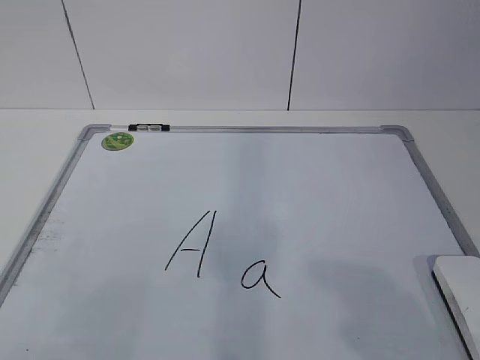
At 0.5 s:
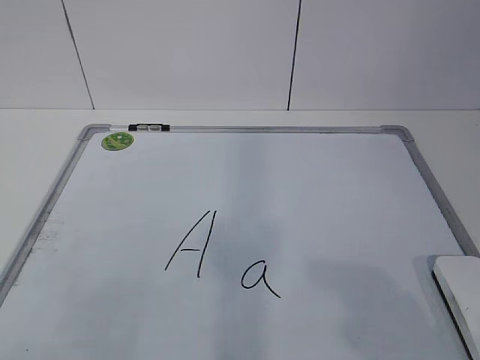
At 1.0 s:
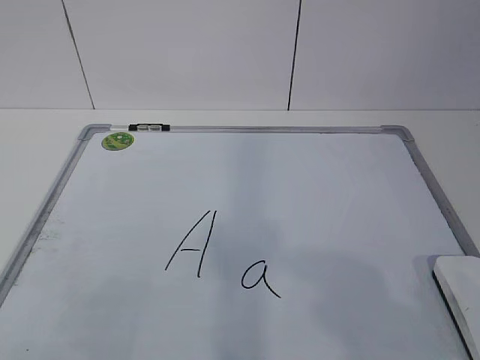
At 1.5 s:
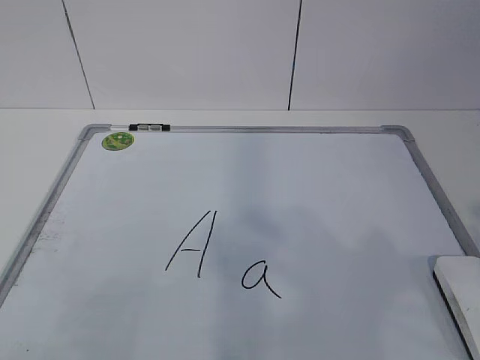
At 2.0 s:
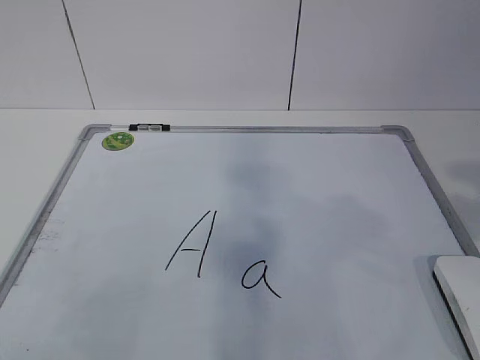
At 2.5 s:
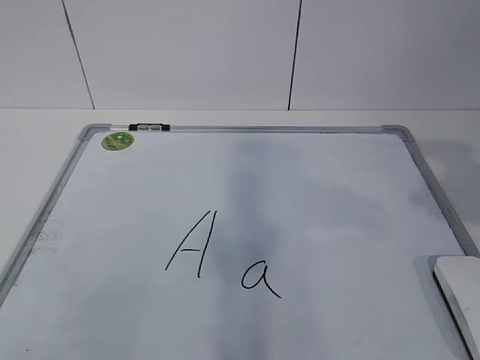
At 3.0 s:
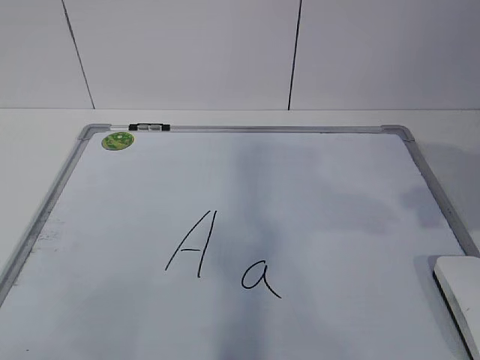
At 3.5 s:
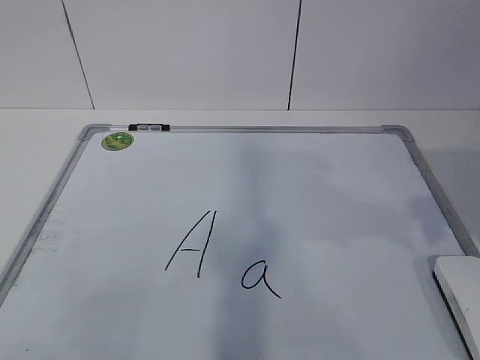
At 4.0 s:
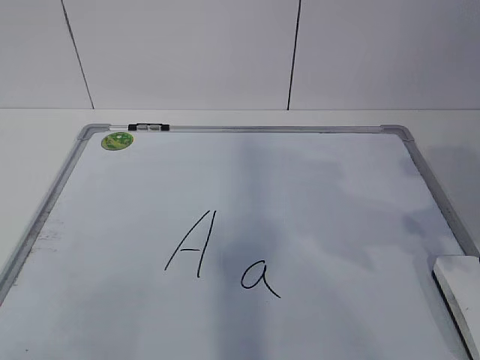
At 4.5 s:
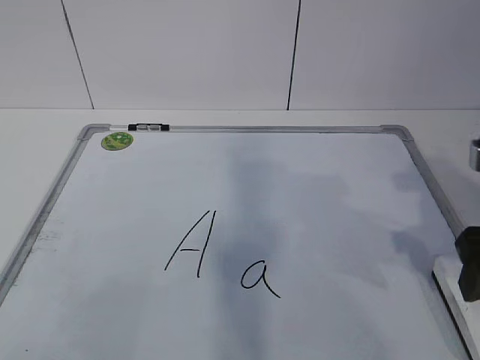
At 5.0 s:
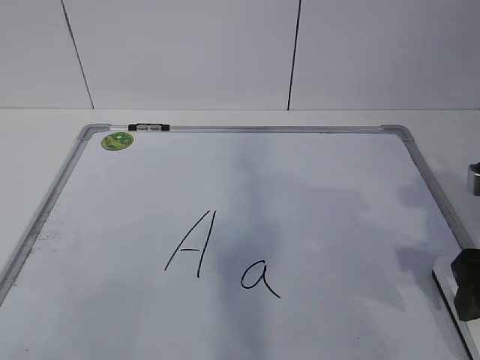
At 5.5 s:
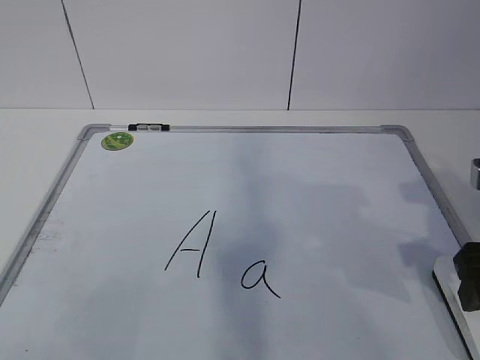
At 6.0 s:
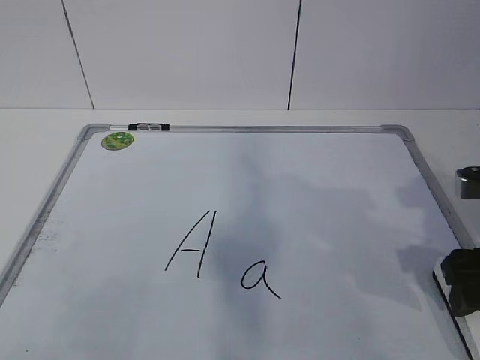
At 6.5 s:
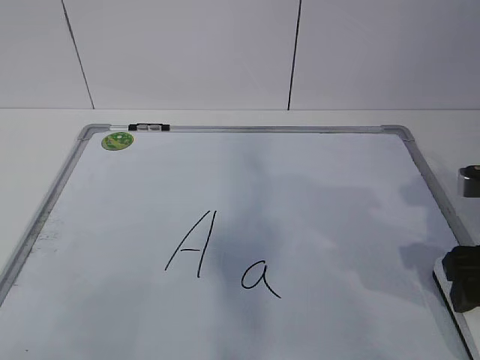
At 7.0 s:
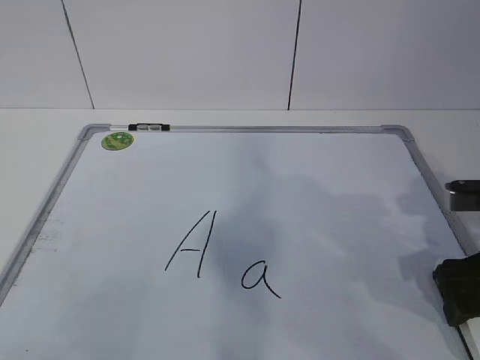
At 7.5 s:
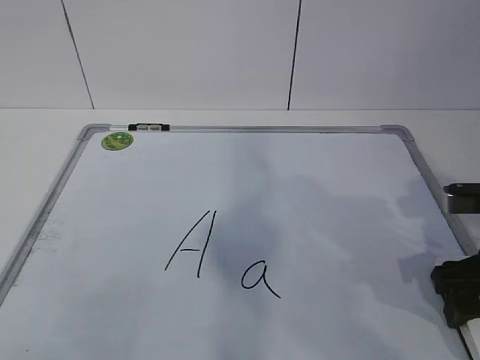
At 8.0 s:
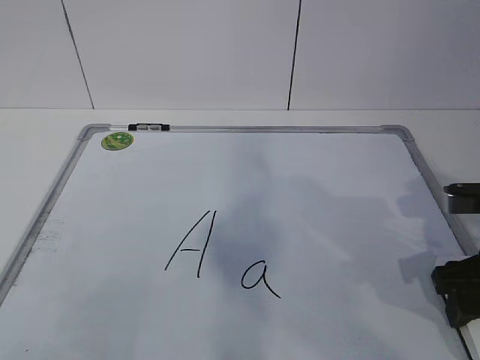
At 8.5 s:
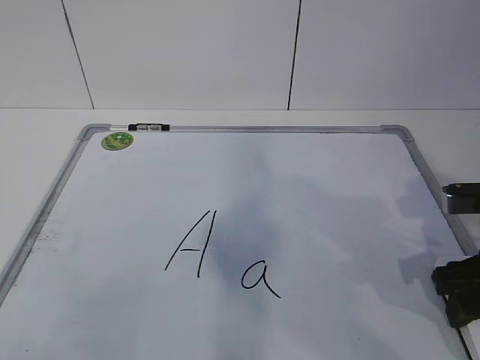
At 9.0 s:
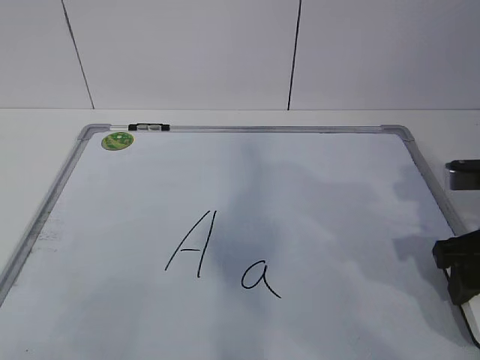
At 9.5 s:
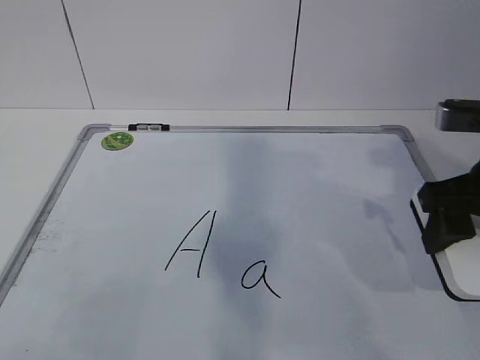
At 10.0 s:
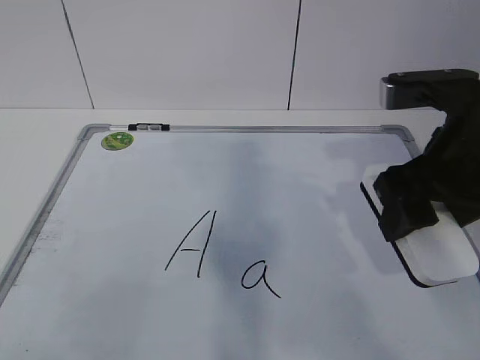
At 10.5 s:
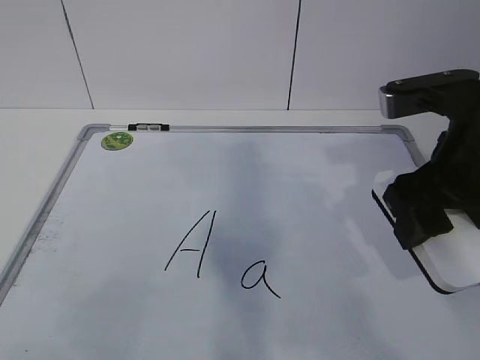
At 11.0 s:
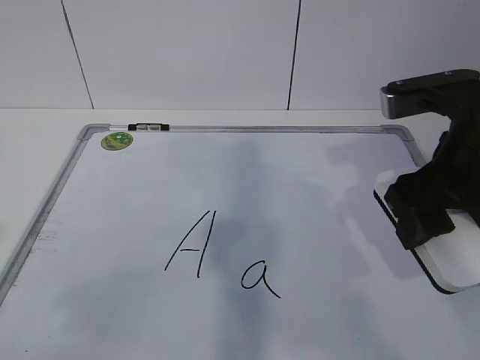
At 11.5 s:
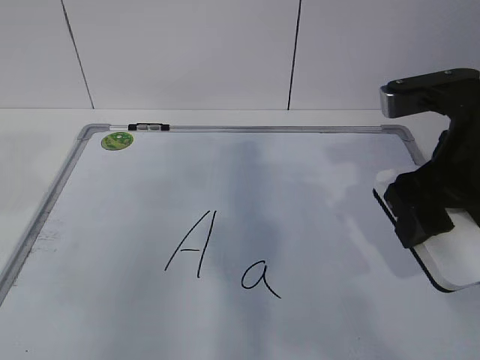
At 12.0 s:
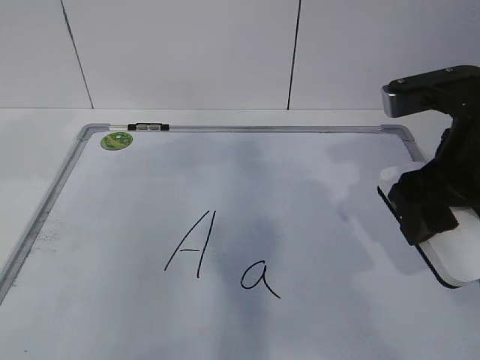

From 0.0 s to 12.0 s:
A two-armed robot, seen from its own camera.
Task of the whole recording: pick up the eraser on the blackboard and erase the letter "a".
Step, from 0.0 s to 6.5 s: Grab the eraser with your right hand.
Step, from 7.0 s to 12.0 s: Hold the drawing board steady with your left hand.
From 4.0 s to 6.0 s: The right gripper moves downward, approximately 5 cm.
From 6.0 s to 8.0 s: The right gripper closes.
From 8.0 s to 10.0 s: The right gripper travels upward and to the left by about 10 cm.

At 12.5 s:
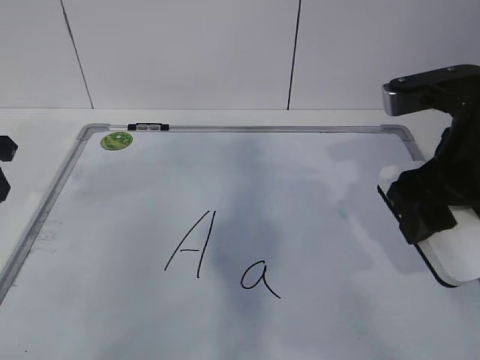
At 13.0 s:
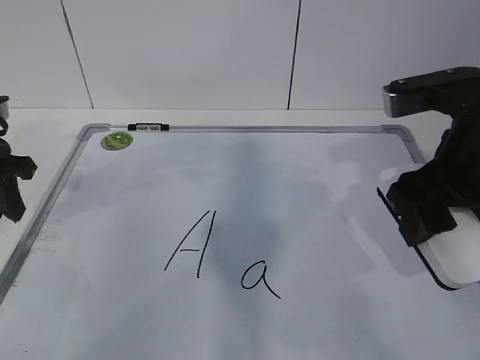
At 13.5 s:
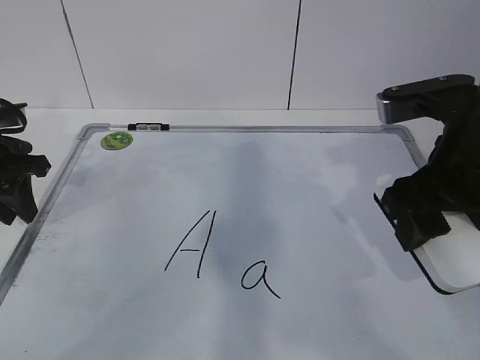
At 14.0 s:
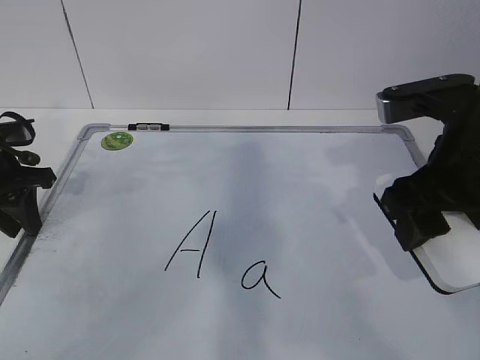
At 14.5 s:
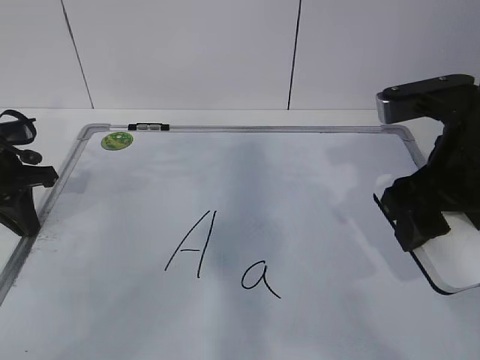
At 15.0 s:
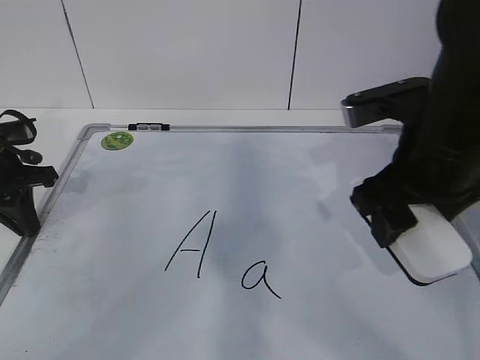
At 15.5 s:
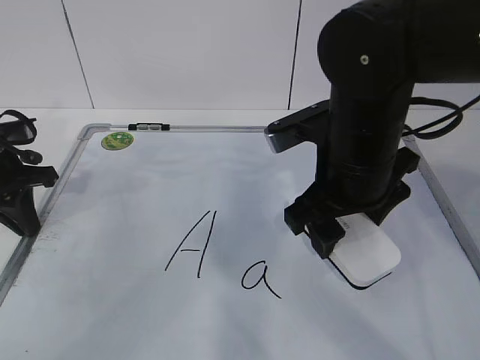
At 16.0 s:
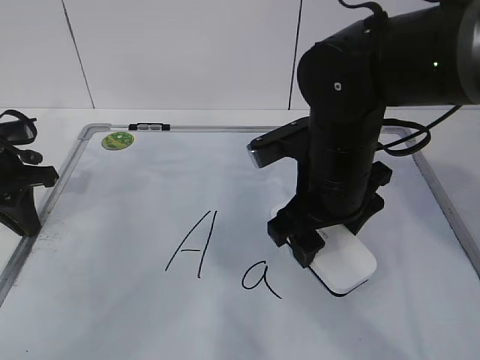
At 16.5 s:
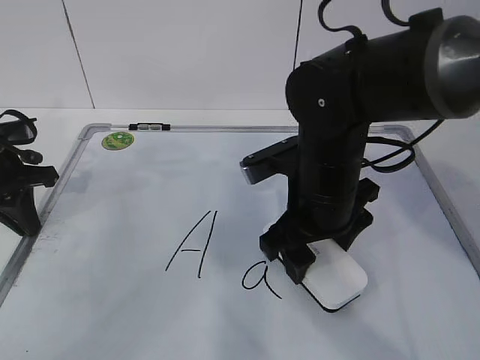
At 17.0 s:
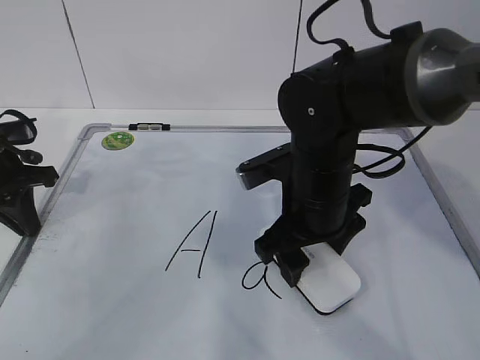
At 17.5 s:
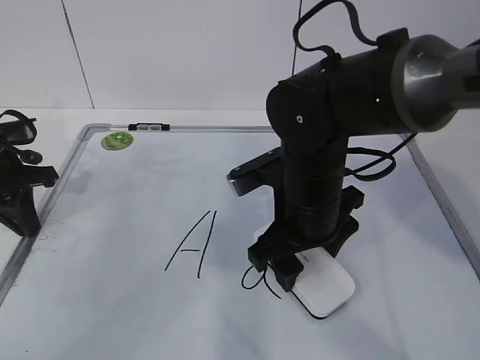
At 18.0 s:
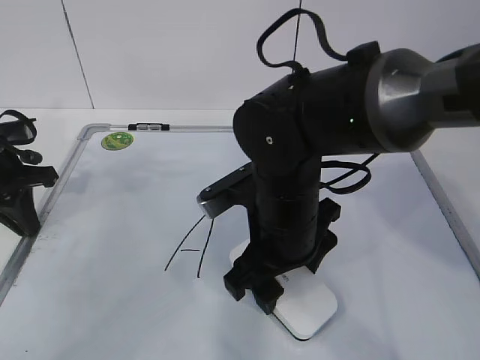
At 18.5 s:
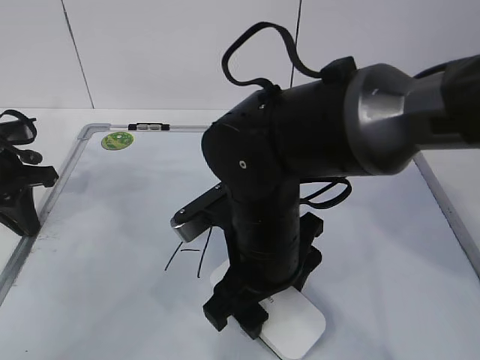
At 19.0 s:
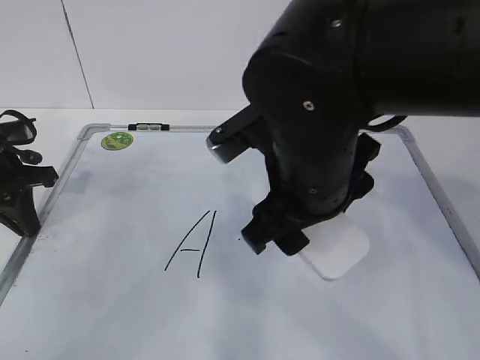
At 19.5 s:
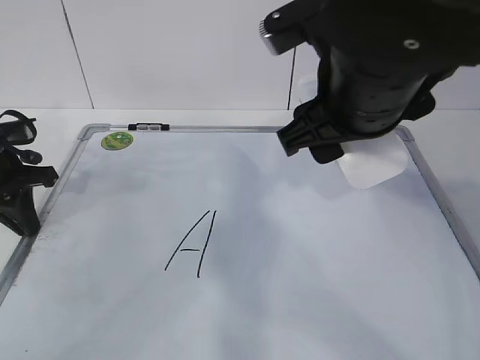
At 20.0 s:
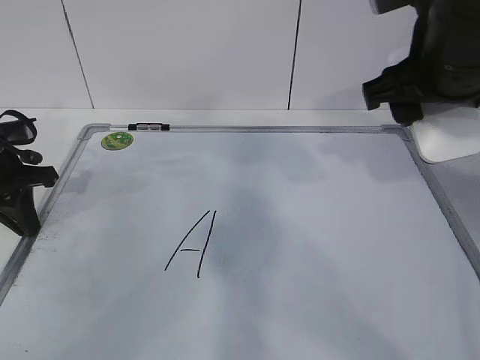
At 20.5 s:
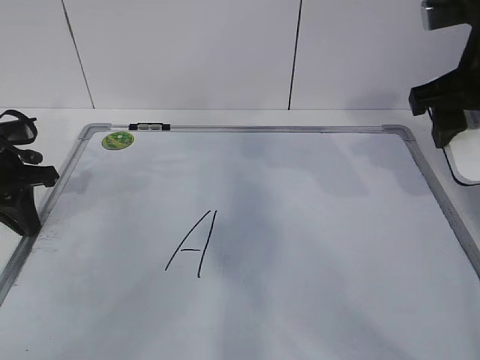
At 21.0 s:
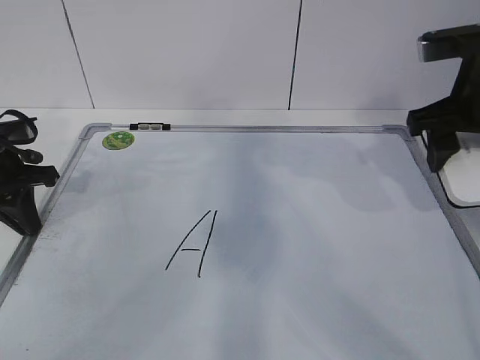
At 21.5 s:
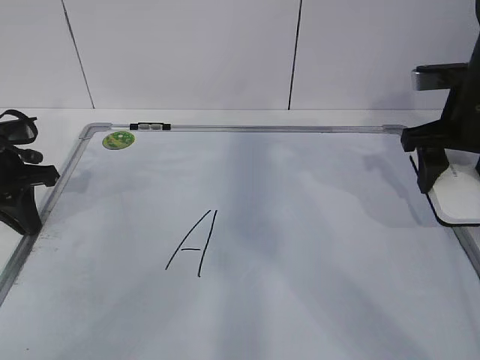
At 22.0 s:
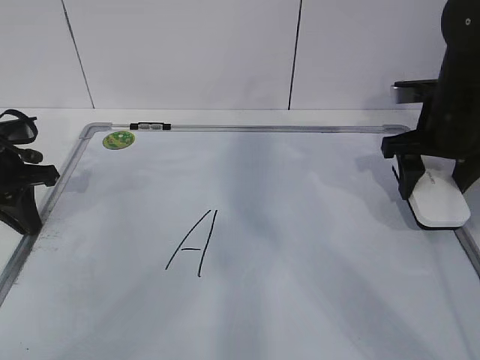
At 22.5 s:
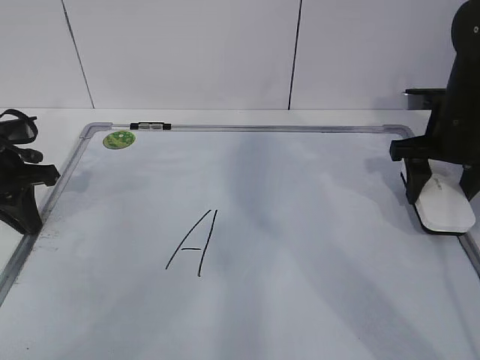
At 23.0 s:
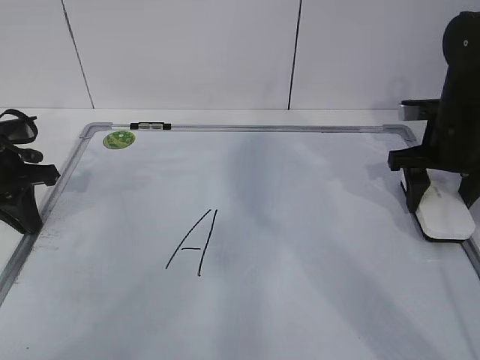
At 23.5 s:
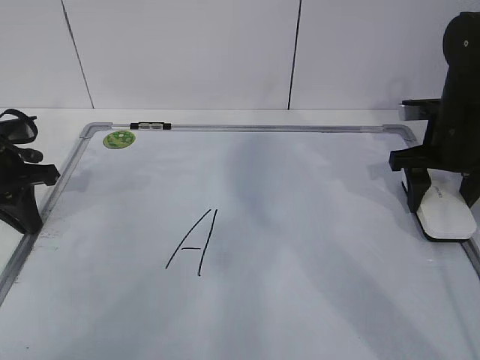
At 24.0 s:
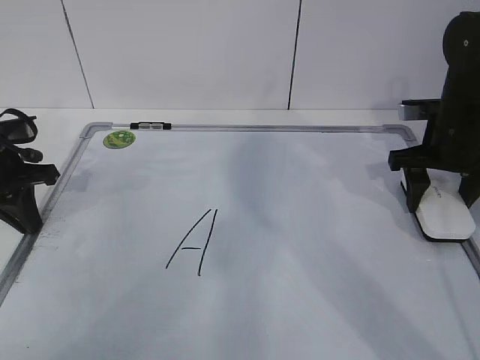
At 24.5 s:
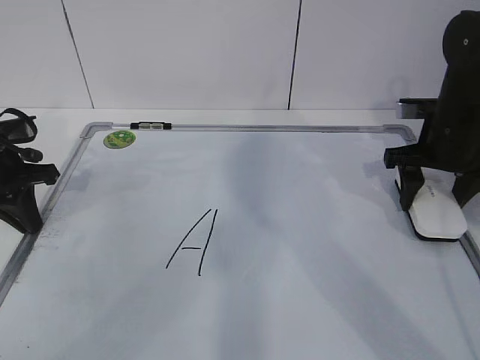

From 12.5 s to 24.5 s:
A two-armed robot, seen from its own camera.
Task of the whole recording: pick up the eraser on the blackboard and erase the letter "a".
Step, from 12.5 s to 15.0 s: Erase the letter a with your right hand.
Step, from 15.5 s to 21.0 s: Put down the eraser with your right hand.
From 12.5 s to 14.5 s: The left gripper travels downward and forward by some 10 cm, and closes up.
From 14.5 s to 16.5 s: The right gripper shifts some 15 cm to the left, downward and forward.
From 16.5 s to 18.5 s: The right gripper shifts approximately 5 cm to the left.
From 18.5 s to 20.5 s: The right gripper goes about 25 cm to the right and upward.
From 20.5 s to 22.5 s: The right gripper travels downward and forward by approximately 15 cm.
From 22.5 s to 24.5 s: The grippers stay close to where they were, moving slightly.

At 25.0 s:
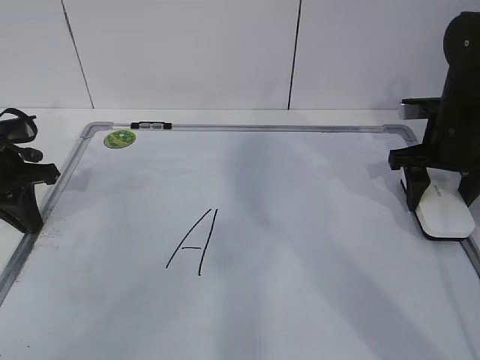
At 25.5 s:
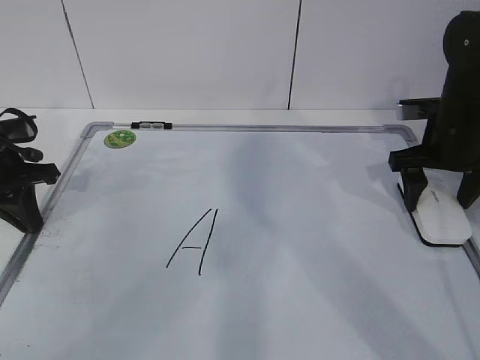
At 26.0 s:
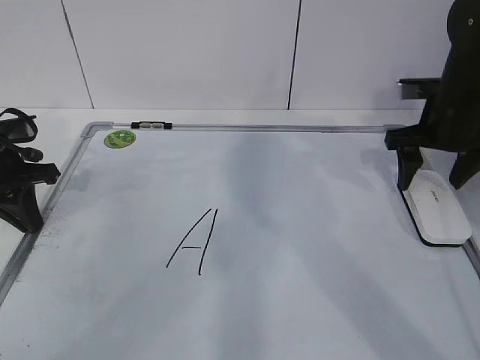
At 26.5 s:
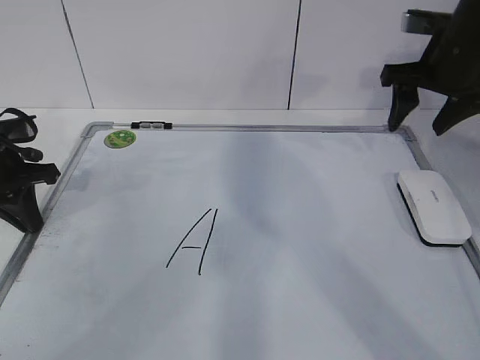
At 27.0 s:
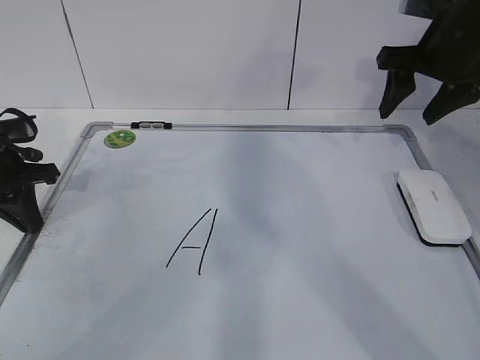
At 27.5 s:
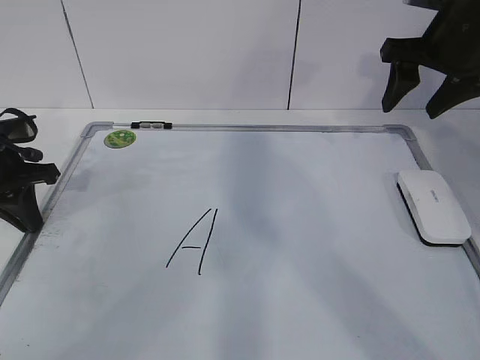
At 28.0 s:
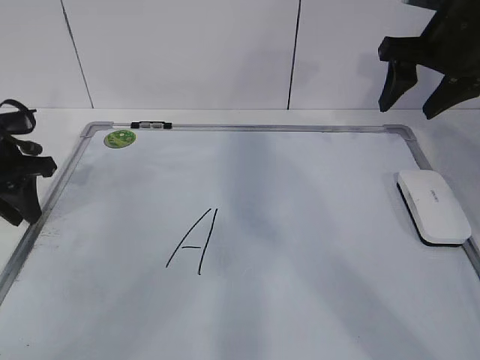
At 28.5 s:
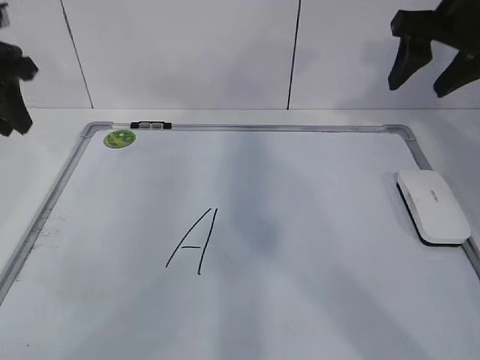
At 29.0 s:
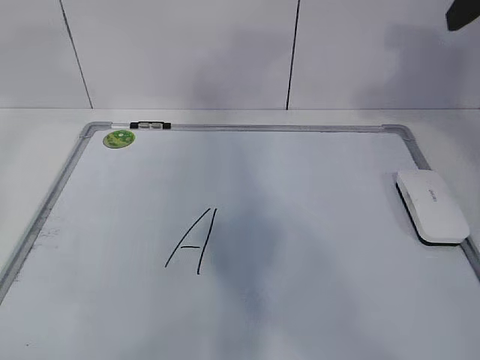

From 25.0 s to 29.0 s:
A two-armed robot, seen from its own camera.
Task of the whole recording: pick up the eraser on the blackboard and erase the letter "a".
From 25.0 s to 27.0 s: The right gripper shifts roughly 10 cm upward, and opens, then closes once more.
From 27.0 s to 29.0 s: The left gripper moves upward, roughly 25 cm, and opens, while the right gripper moves upward and backward, some 15 cm.
